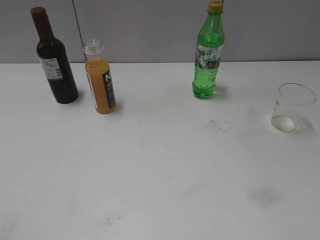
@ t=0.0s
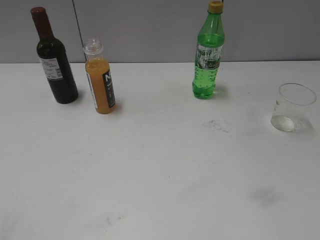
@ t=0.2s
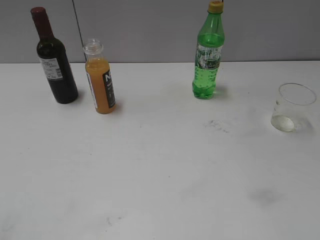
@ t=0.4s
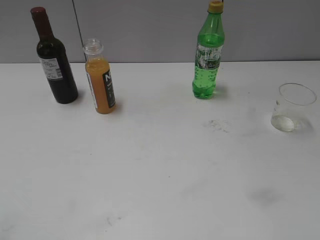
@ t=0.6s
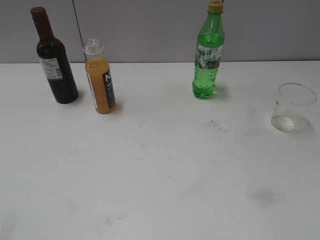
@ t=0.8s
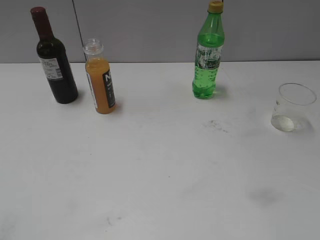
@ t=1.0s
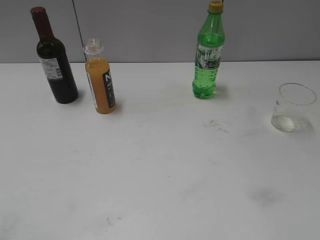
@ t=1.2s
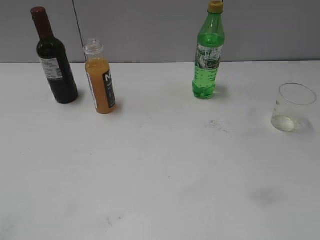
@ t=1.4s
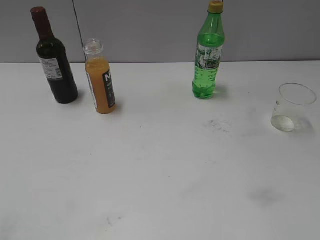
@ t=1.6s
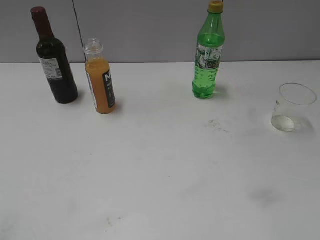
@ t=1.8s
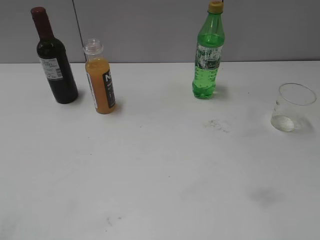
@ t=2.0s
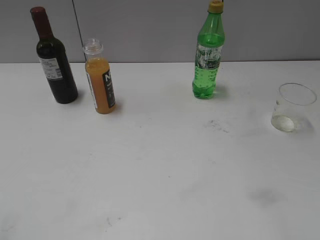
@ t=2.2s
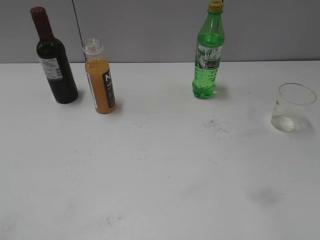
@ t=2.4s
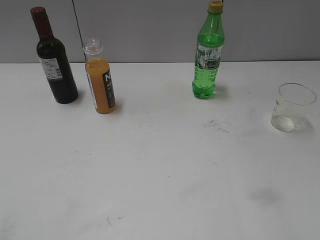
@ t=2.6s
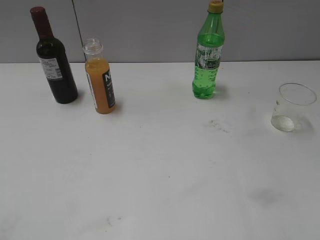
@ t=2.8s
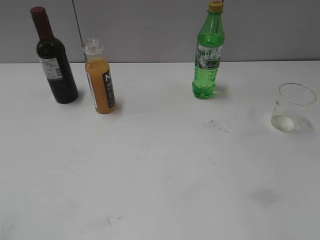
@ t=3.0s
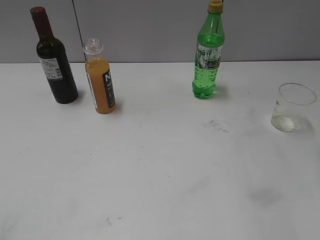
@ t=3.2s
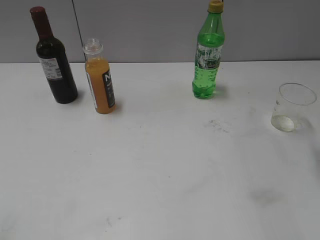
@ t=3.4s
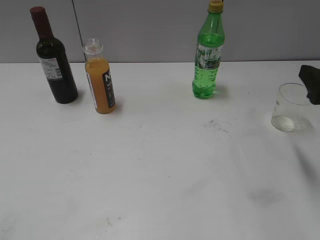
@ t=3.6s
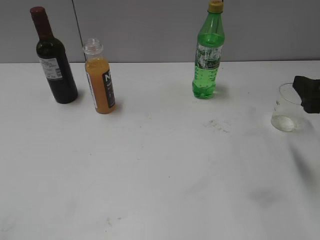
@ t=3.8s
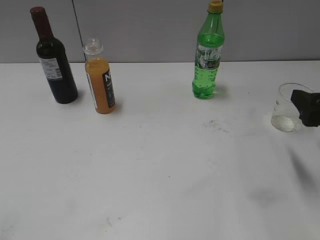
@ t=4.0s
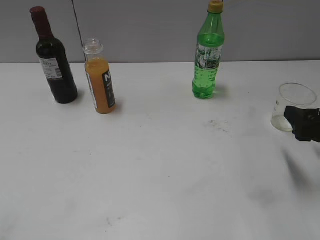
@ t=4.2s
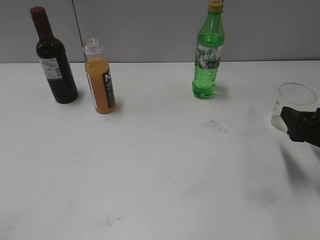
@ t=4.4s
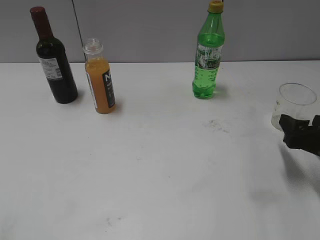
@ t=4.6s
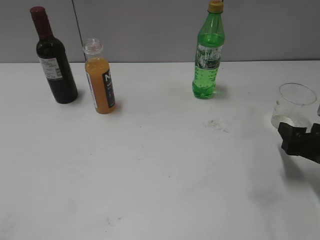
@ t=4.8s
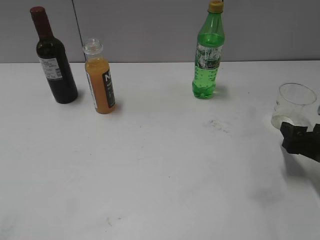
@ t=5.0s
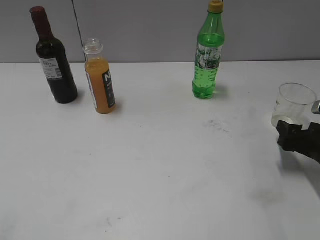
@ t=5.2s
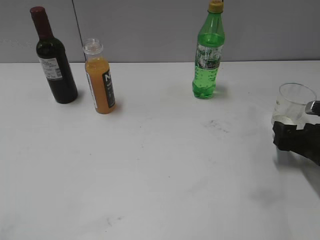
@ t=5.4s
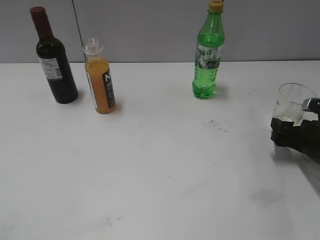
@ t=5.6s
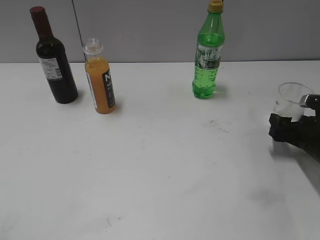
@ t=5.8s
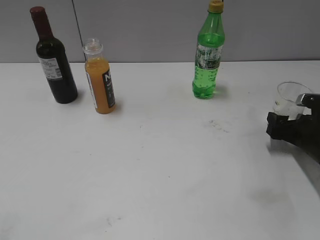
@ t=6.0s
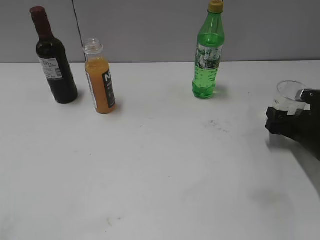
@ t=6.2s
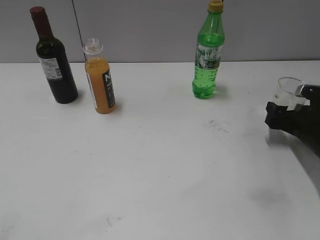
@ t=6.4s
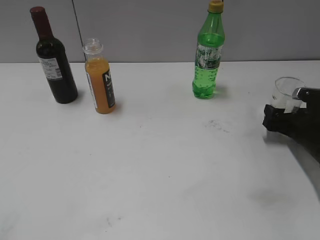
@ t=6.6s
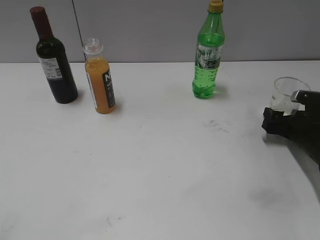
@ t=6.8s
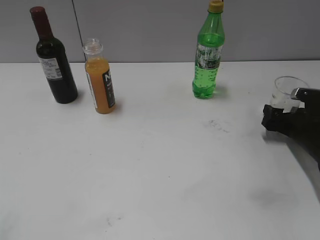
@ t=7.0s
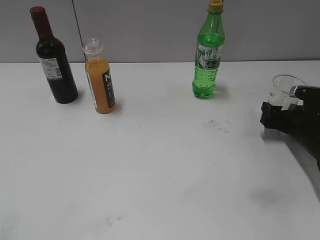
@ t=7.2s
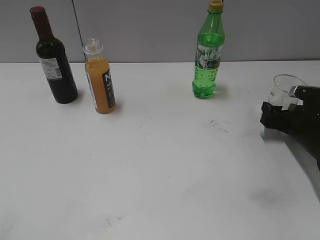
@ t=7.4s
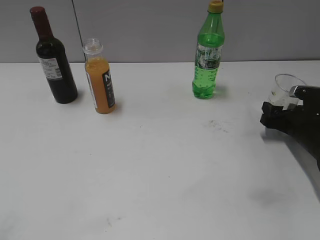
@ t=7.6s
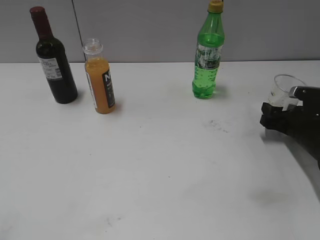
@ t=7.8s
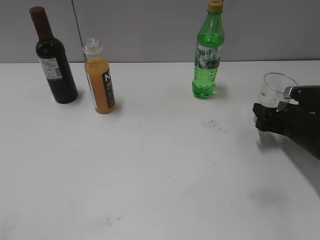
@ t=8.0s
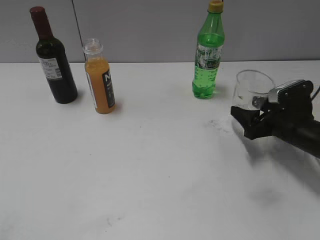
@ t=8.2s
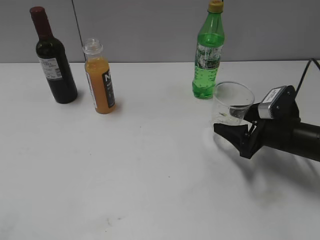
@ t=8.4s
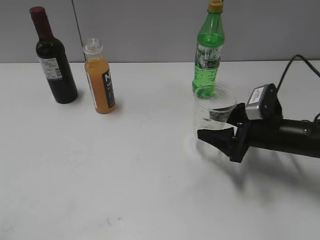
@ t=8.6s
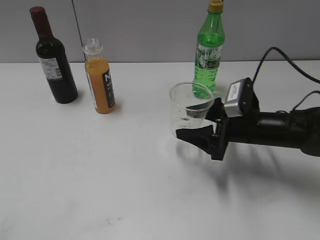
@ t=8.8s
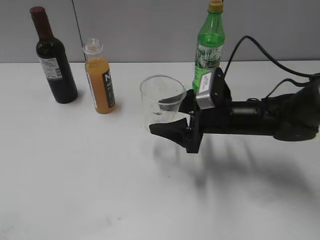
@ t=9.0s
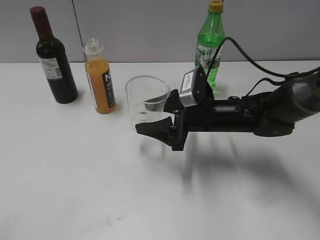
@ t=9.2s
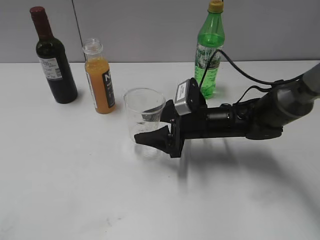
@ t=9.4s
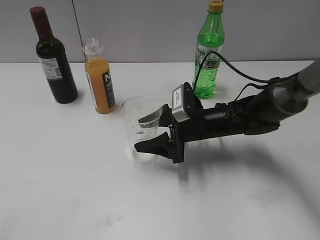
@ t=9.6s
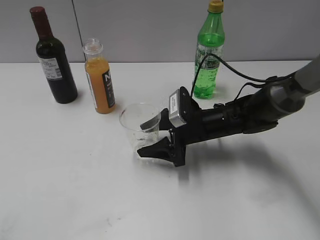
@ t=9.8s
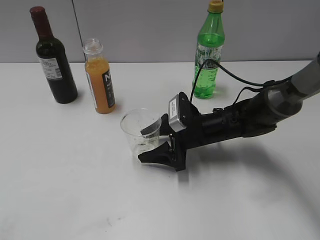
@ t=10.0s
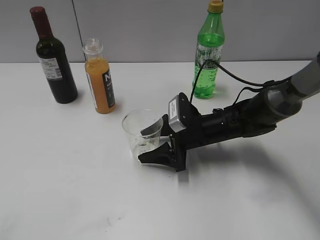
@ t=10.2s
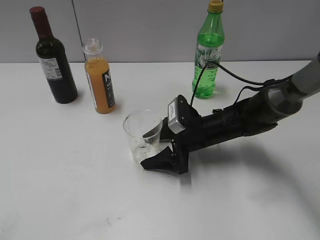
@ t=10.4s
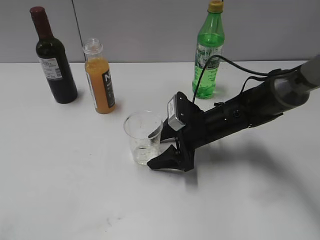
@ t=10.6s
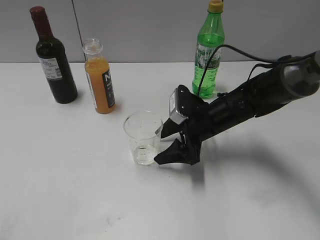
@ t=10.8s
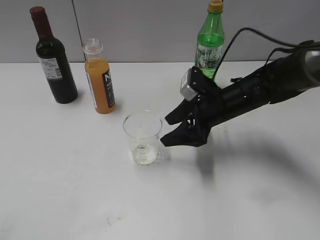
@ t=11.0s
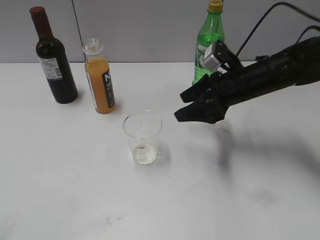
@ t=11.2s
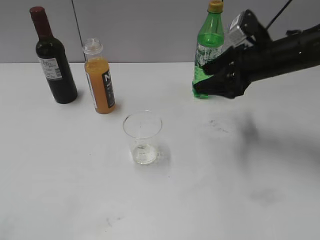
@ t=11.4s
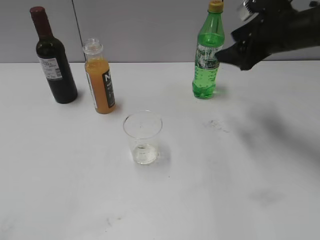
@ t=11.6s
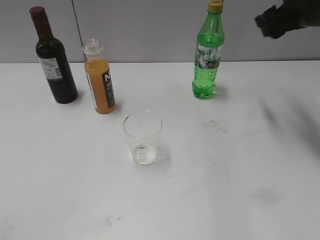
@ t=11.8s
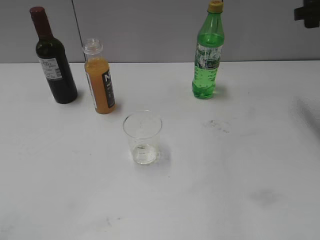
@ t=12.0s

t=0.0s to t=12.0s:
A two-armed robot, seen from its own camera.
Step, t=3.6s to t=7.6s: Grasp the transparent cup with right gripper.
Step, t=8.0s to t=10.8s: Place the transparent cup on the table with right gripper.
t=3.0s to t=4.4s: The right gripper travels downward and forward by some 15 cm.
t=4.4s to t=6.0s: The right gripper travels downward and forward by approximately 10 cm.
t=6.0s to t=7.6s: The right gripper closes.
t=7.6s to t=9.0s: The right gripper goes about 20 cm to the left.
t=9.0s to t=10.4s: The right gripper travels downward by about 5 cm, and opens its fingers.
t=10.4s to t=12.0s: The right gripper is displaced upward and to the right by about 30 cm.

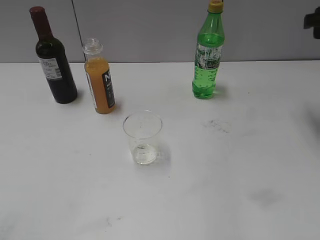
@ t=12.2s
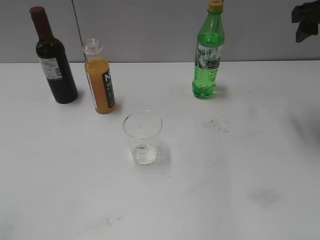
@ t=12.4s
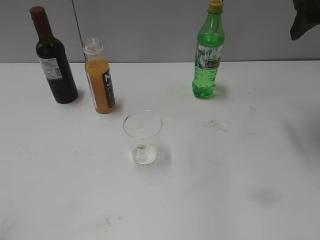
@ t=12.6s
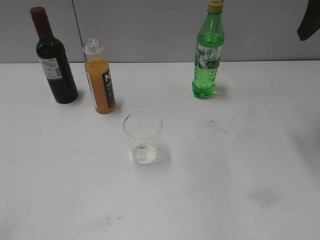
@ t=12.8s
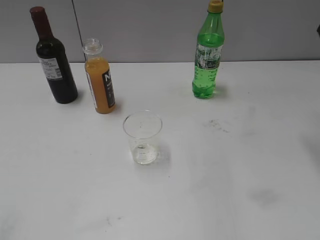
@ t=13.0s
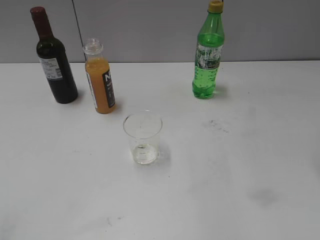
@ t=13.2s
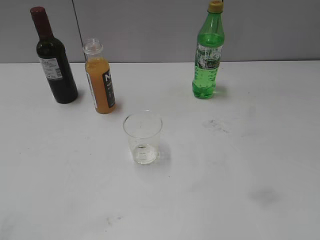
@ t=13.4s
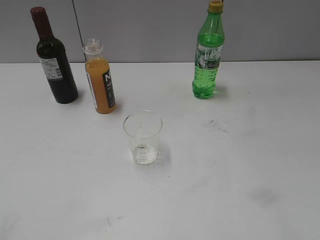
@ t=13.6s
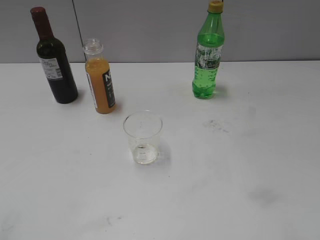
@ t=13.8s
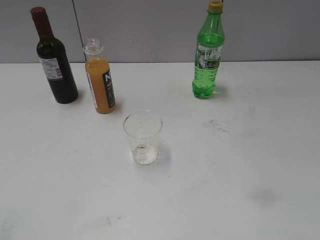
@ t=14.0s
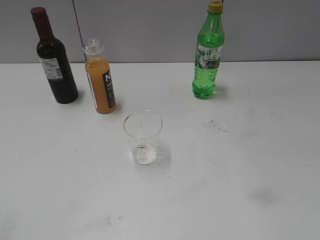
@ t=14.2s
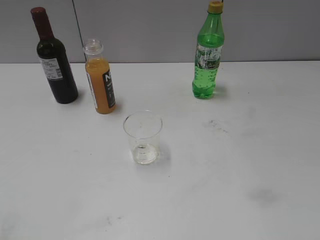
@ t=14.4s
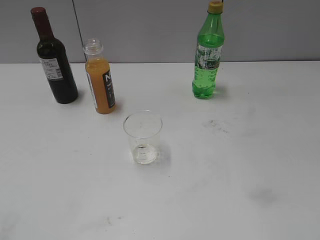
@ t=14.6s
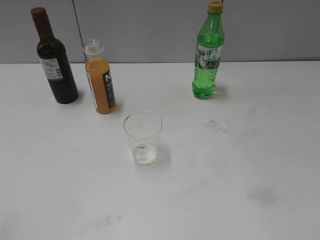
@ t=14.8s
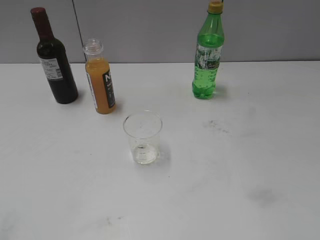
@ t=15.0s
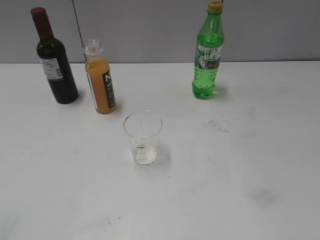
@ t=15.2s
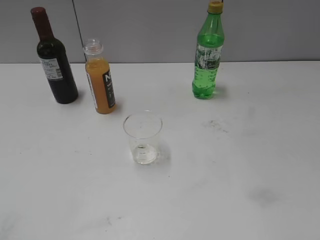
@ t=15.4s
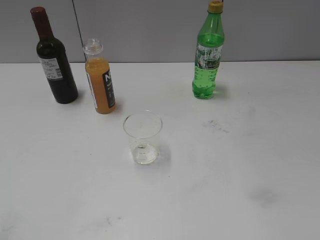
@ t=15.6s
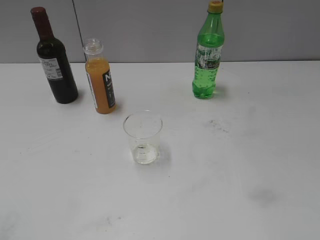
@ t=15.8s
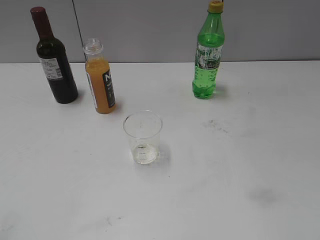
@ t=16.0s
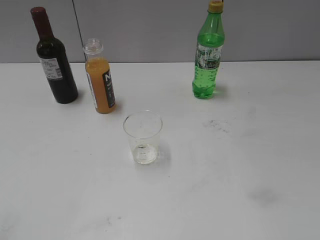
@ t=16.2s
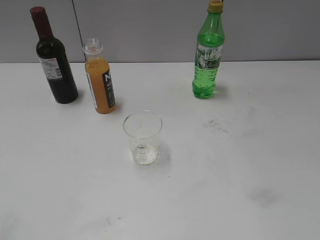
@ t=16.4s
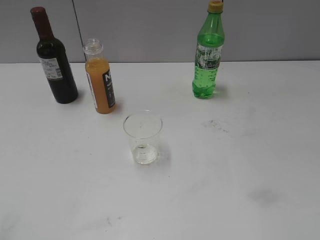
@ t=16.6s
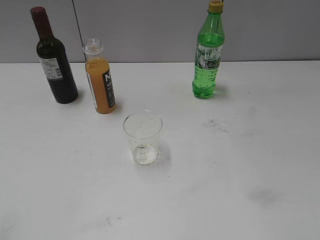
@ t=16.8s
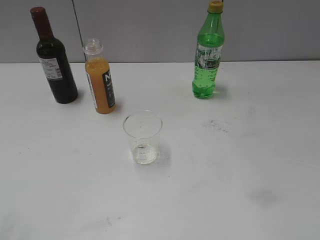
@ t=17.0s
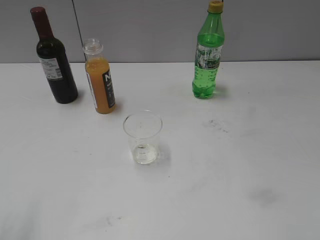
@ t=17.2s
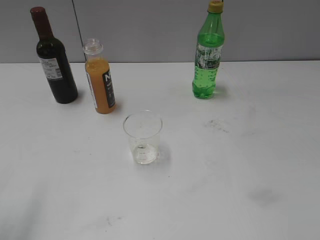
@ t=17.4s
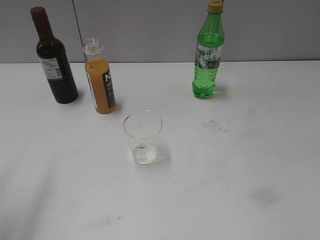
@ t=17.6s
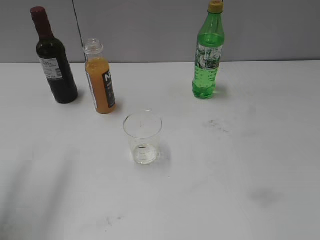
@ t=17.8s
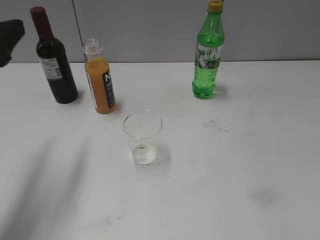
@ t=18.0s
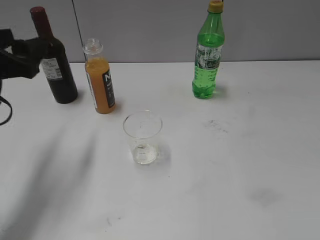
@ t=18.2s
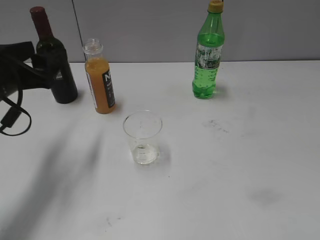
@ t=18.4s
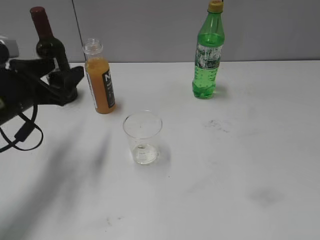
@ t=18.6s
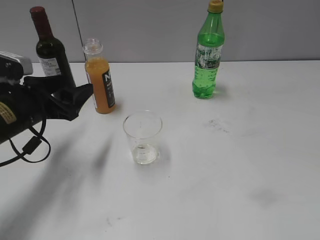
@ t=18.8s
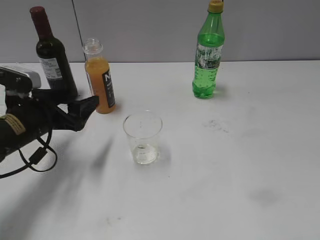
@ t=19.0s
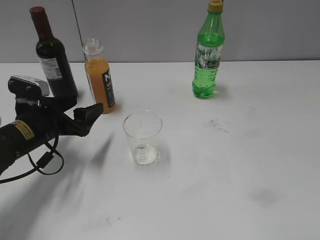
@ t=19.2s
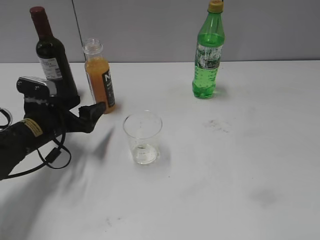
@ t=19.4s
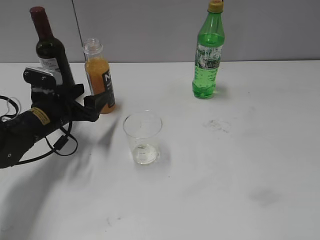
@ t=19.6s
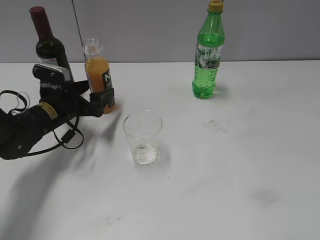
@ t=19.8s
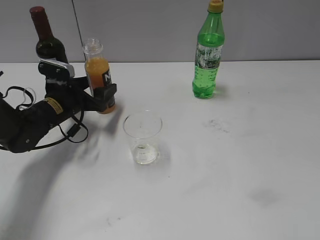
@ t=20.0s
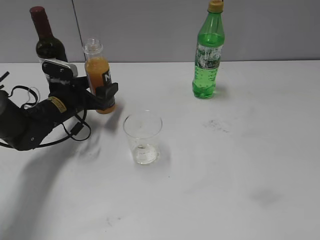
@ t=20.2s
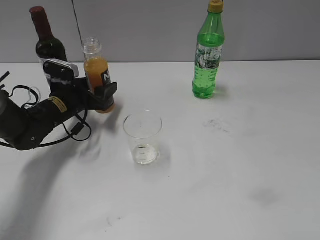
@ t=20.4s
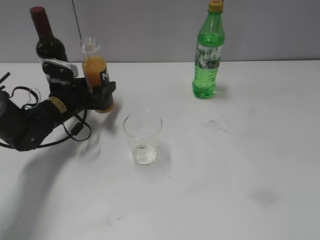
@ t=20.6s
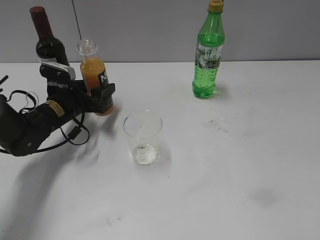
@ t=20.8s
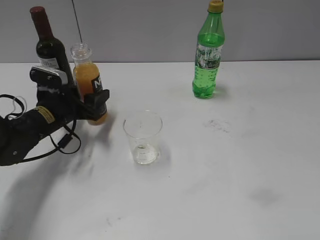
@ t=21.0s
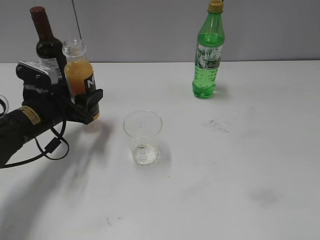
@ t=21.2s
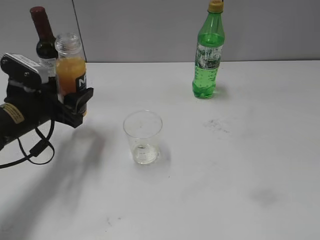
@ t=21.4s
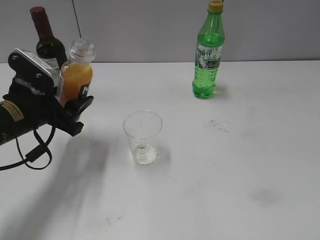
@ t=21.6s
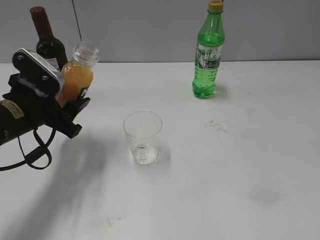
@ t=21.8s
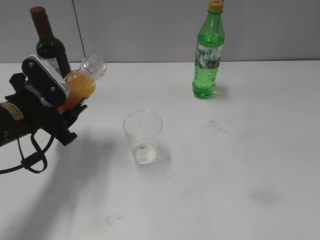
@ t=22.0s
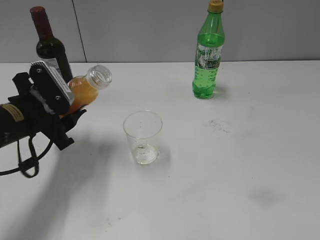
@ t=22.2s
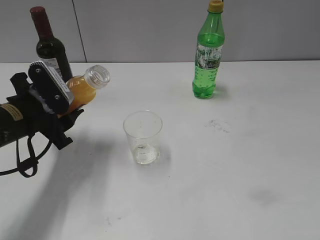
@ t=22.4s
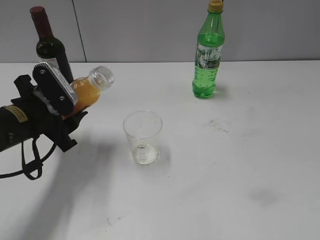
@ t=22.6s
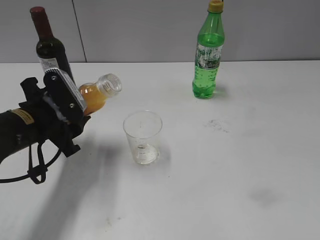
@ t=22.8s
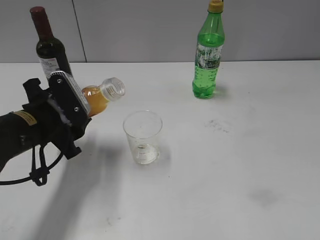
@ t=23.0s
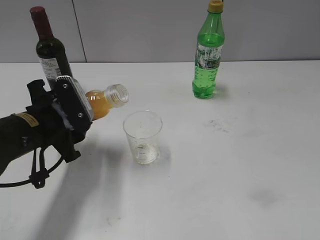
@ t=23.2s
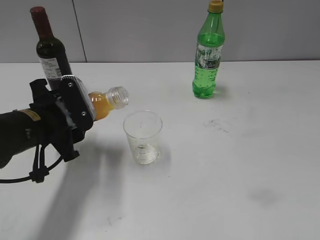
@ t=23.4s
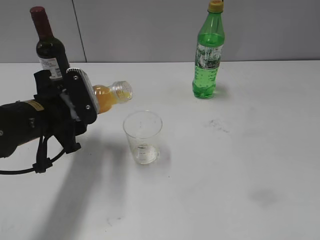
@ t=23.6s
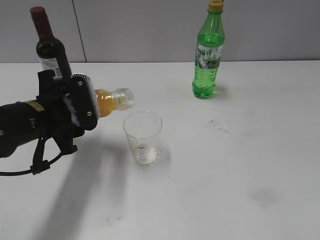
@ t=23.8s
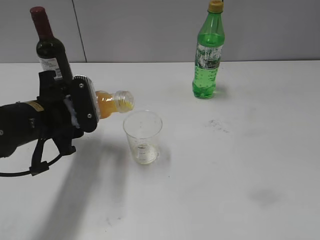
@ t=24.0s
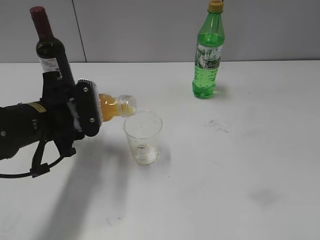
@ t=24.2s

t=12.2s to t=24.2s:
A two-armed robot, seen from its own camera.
Step, t=12.2s to t=20.2s: Grasp the bottle with orange juice with left gripper.
t=12.2s to t=13.8s: The right gripper shifts approximately 25 cm backward.
t=16.6s to t=18.2s: The left gripper moves forward, some 25 cm.
t=18.2s to t=19.8s: The left gripper moves downward and forward, about 20 cm.
t=19.8s to t=21.2s: The left gripper closes up.
t=21.2s to t=22.6s: The left gripper goes approximately 5 cm backward.
